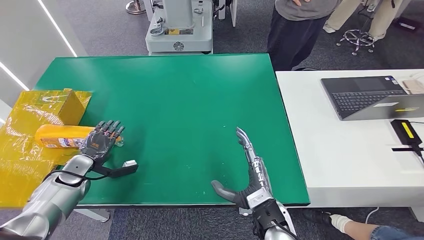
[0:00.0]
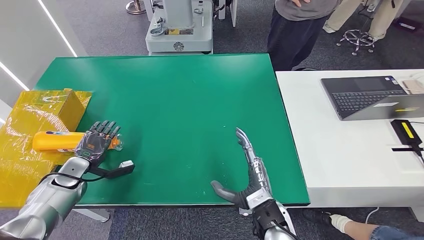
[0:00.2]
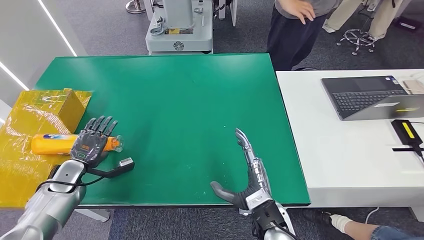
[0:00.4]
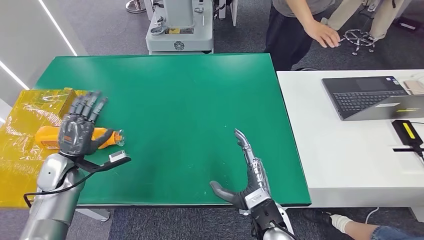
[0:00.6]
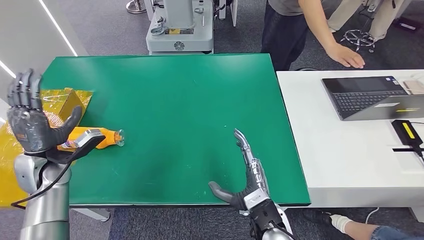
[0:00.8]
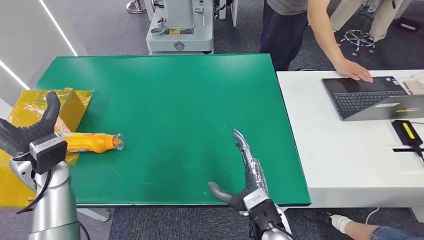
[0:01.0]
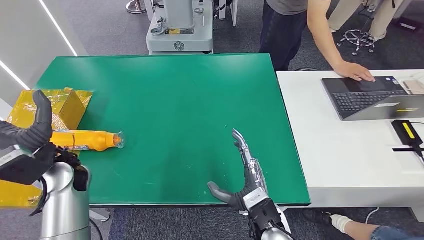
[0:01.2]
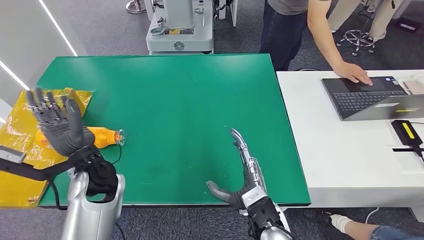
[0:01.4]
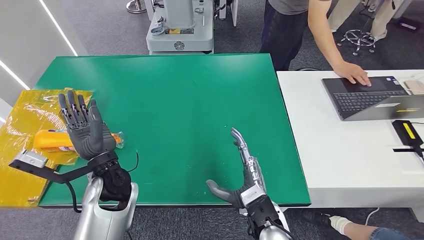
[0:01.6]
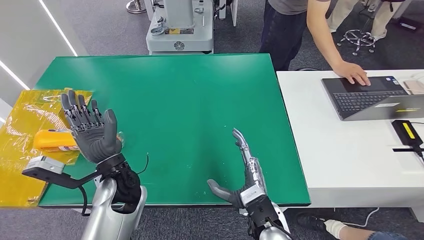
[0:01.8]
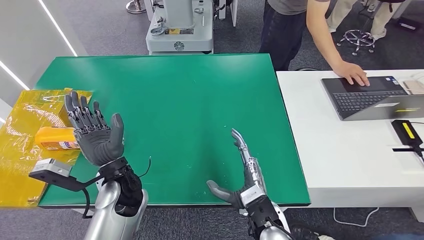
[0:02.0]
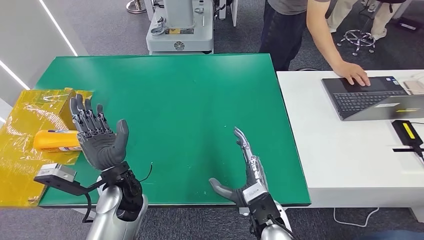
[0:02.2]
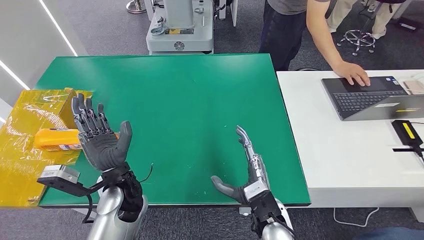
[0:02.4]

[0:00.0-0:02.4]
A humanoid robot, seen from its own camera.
Step, 0:00.0 to 0:02.4: Turn the bottle to the front side.
0:00.0 to 0:01.2: The left hand travels upward and to the right by some 20 cm.
0:01.2 to 0:02.4: The left hand goes approximately 15 cm to the right, downward and backward.
